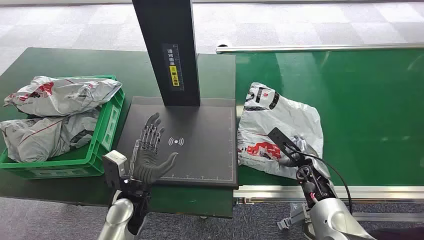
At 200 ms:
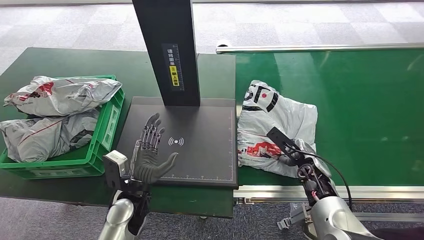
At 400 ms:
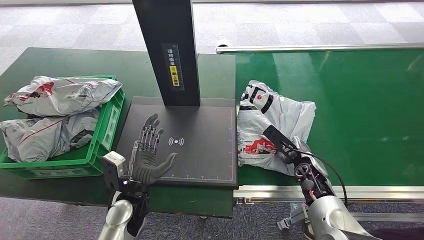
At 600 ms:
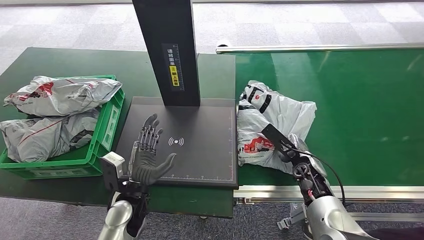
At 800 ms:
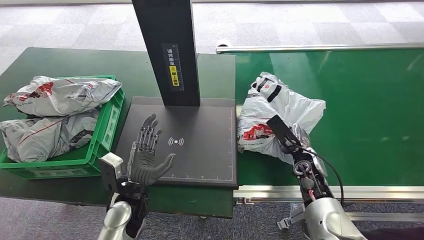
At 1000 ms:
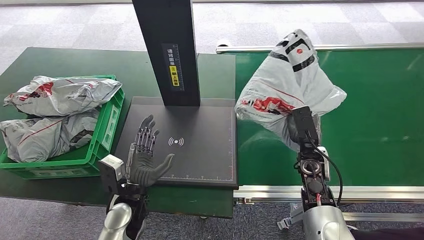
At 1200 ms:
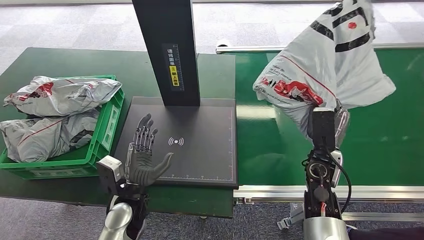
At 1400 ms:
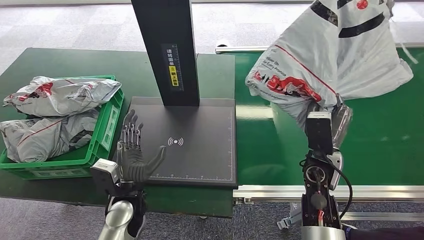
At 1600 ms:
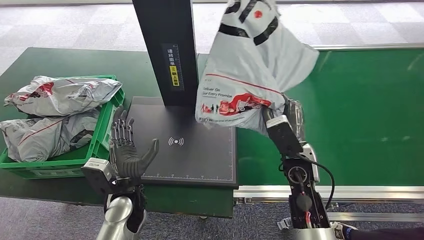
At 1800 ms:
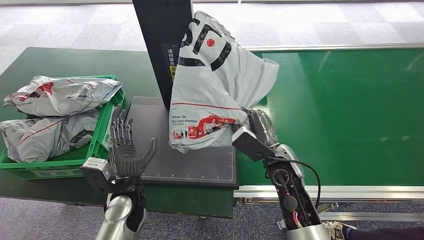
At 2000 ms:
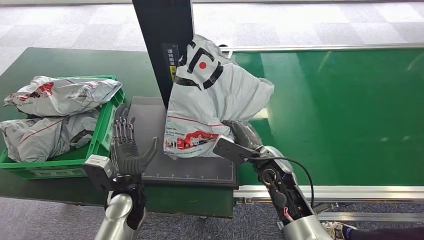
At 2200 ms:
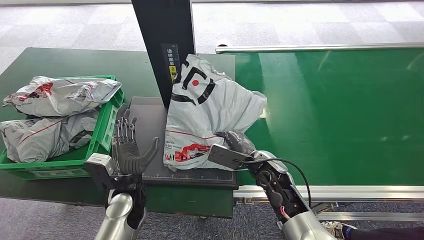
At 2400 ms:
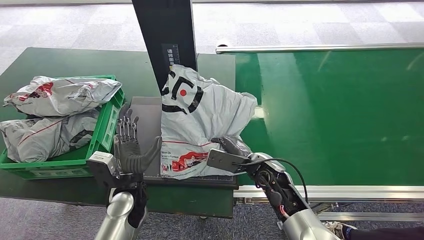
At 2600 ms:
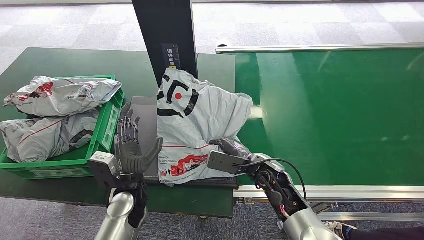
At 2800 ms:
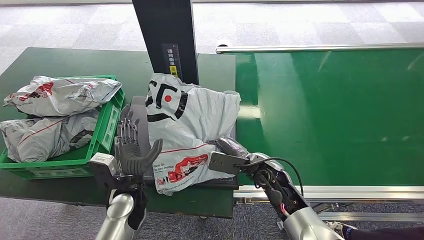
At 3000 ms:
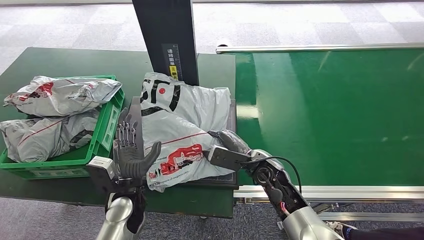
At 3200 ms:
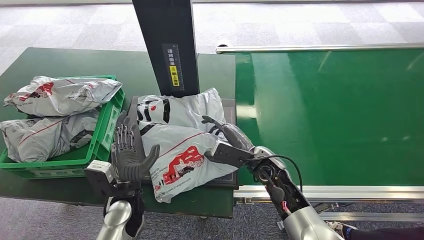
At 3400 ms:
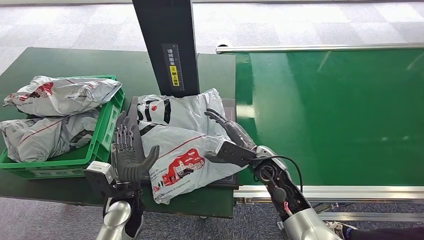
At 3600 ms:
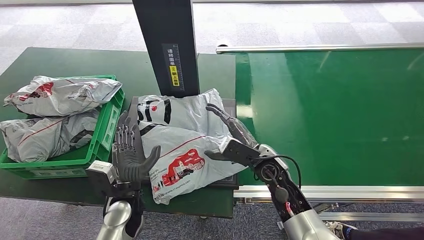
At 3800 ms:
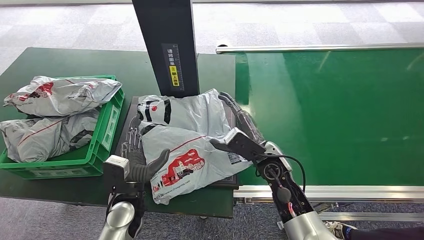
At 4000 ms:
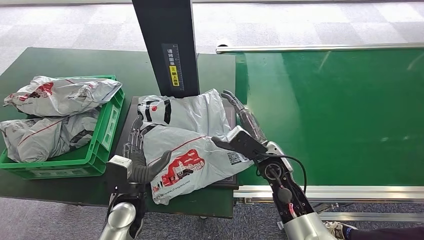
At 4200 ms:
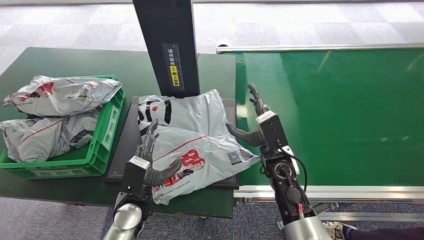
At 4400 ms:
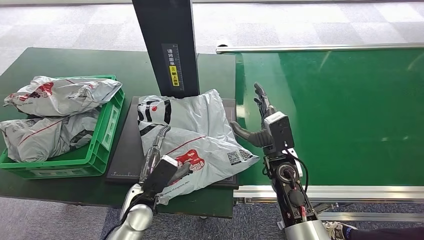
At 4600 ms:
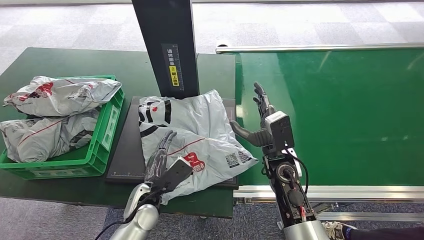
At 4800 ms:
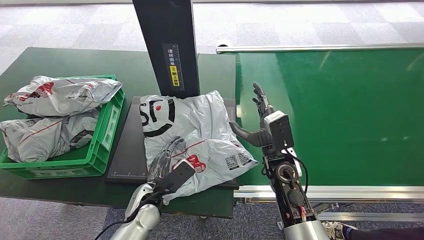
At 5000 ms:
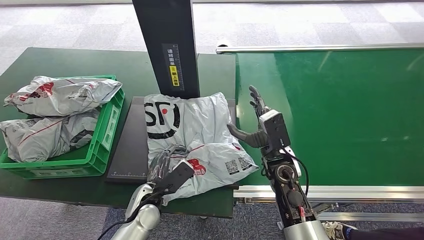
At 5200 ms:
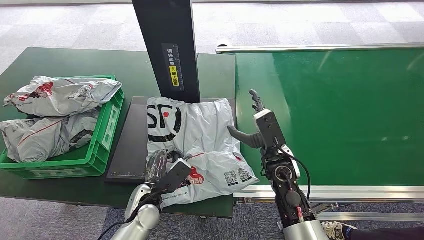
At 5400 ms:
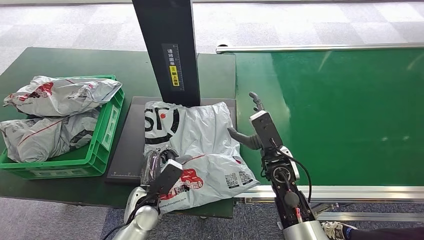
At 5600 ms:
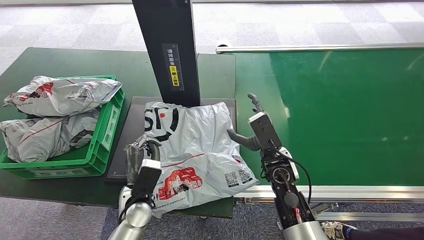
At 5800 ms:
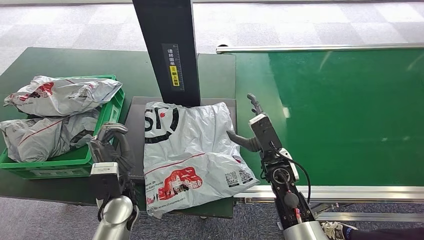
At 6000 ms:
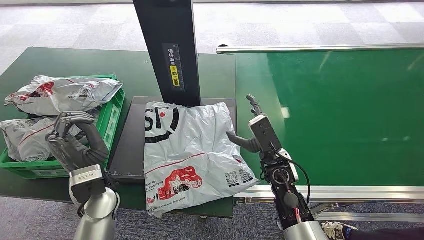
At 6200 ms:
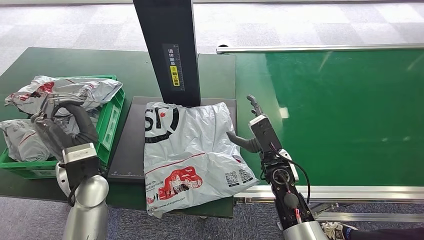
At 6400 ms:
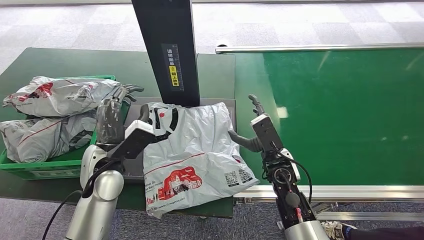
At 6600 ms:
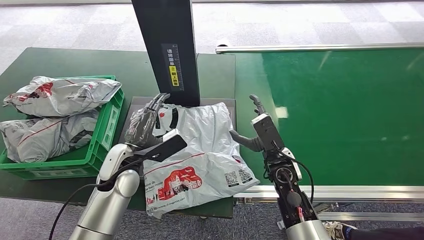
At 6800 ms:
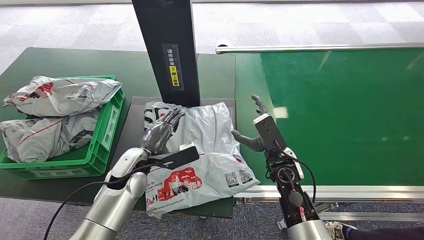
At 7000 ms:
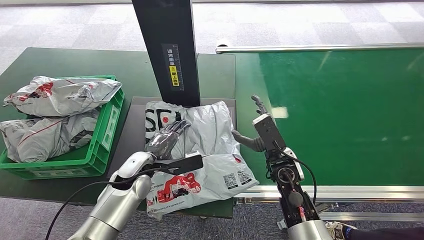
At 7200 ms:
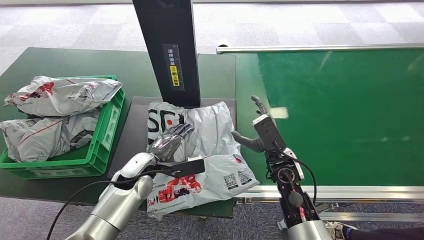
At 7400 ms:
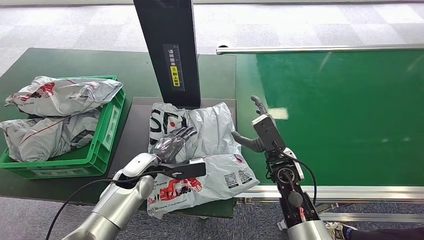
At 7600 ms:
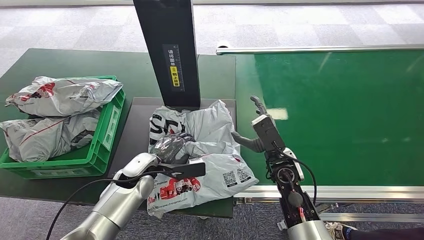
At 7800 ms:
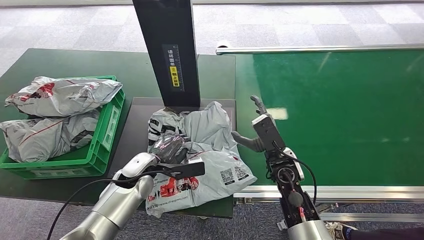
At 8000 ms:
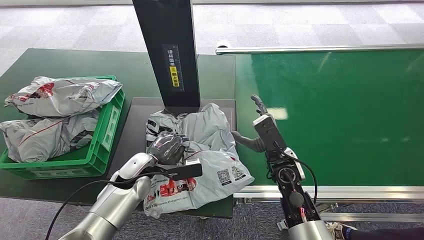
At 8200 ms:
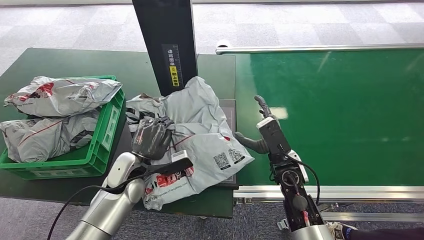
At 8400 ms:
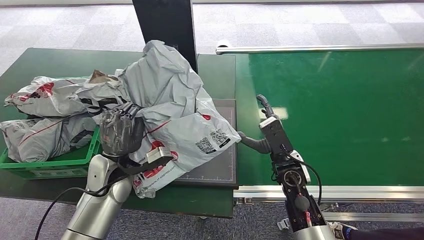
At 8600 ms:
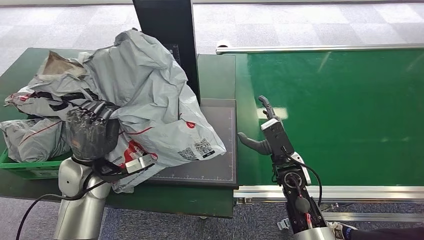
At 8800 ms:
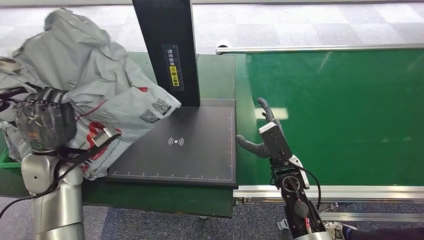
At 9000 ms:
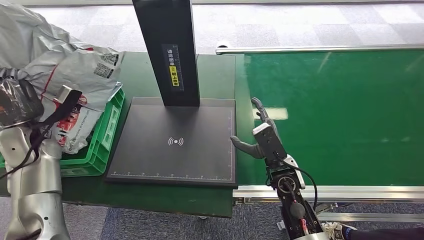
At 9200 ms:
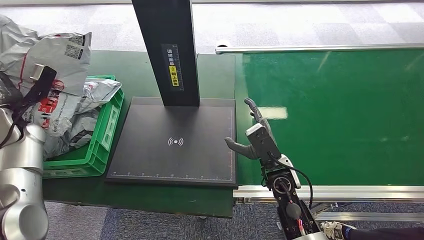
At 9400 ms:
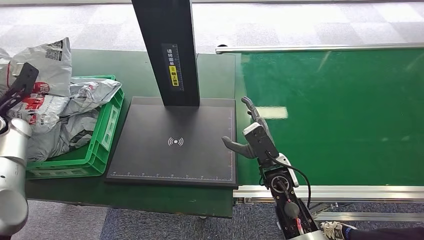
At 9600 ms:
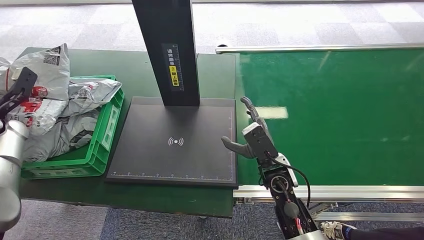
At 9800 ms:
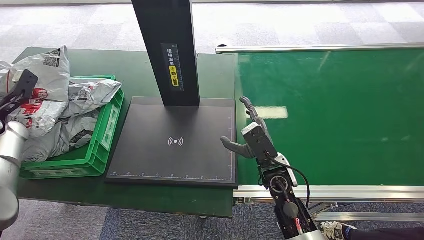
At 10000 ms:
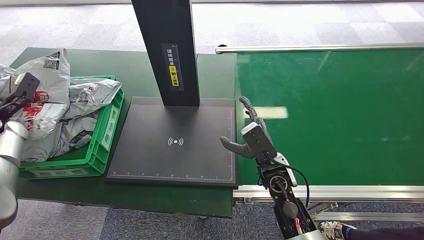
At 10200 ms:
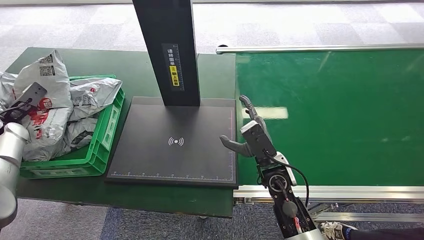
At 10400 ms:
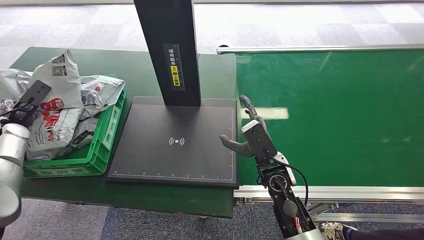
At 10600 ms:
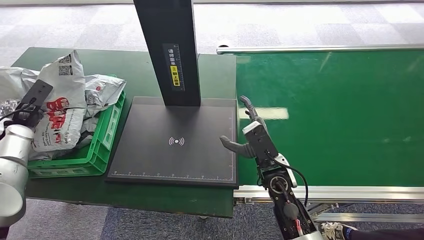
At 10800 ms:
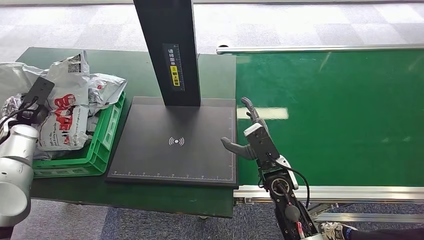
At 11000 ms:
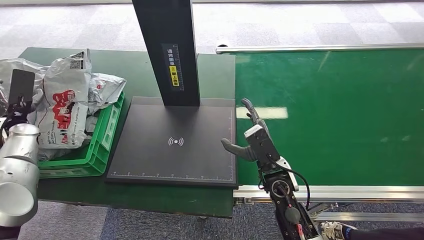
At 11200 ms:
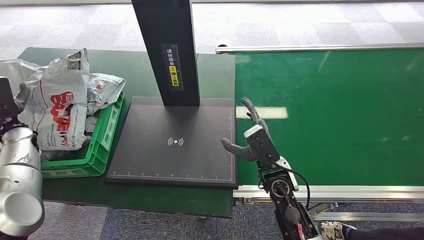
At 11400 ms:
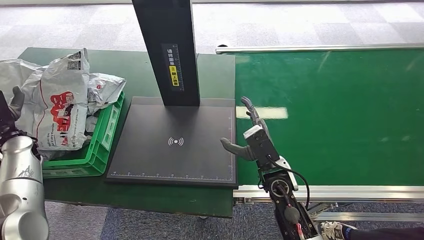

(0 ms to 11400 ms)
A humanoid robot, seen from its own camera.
Step, 0 ms - 1400 ms: Pick up the package from the conveyor belt.
Step, 1600 ms - 4800 ms: Place the package onto the inbound machine.
Step, 5000 ms - 9200 ms: Pick up the package from the inbound machine.
Step, 9400 ms - 11400 ms: Place the package into the parcel locker.
5600 ms - 7200 ms: The left hand moves forward, approximately 10 cm, and moves some 15 cm upward and comes back.
10000 ms - 11400 ms: The left hand changes place by approximately 5 cm.
